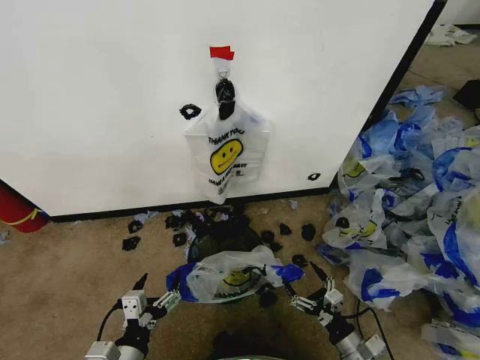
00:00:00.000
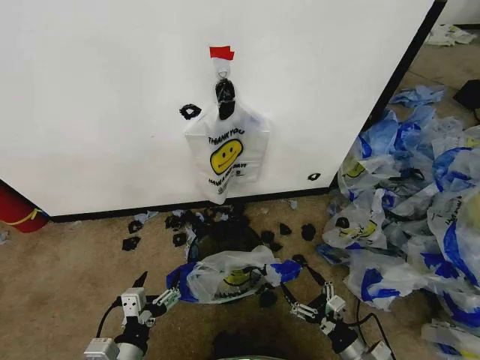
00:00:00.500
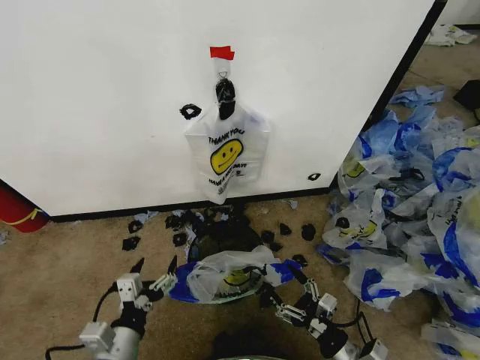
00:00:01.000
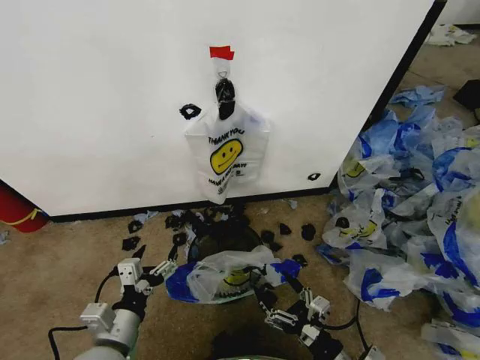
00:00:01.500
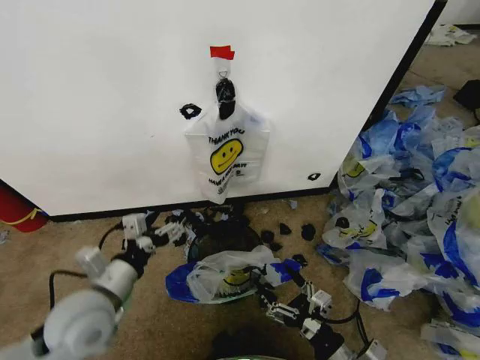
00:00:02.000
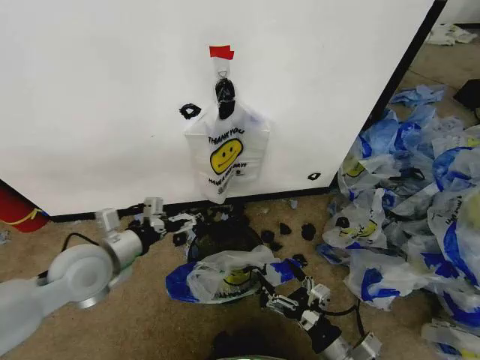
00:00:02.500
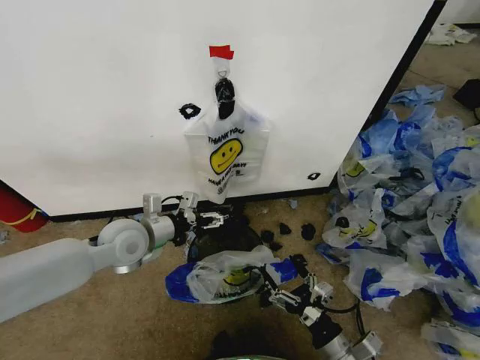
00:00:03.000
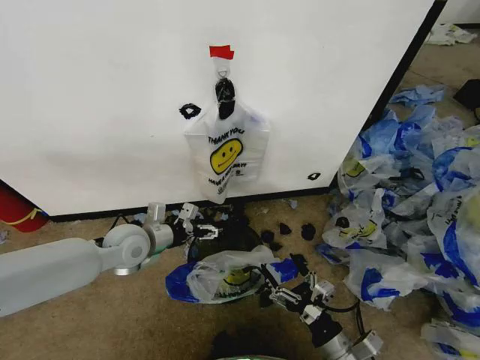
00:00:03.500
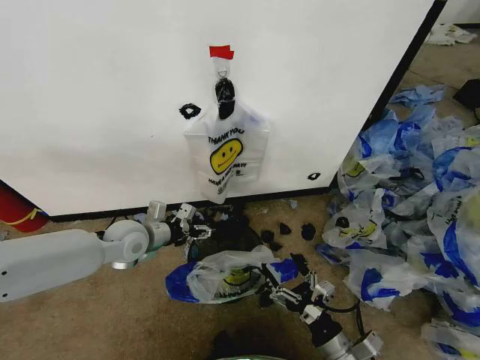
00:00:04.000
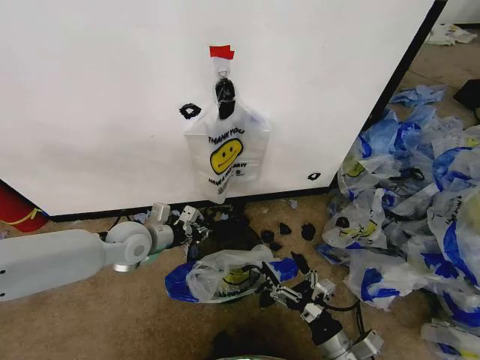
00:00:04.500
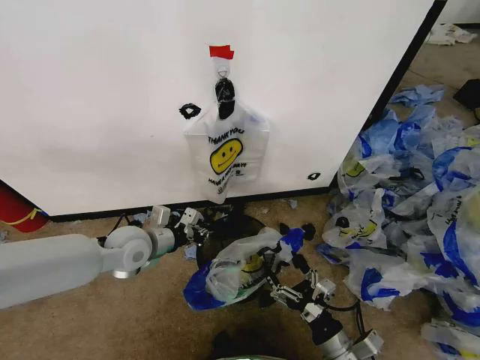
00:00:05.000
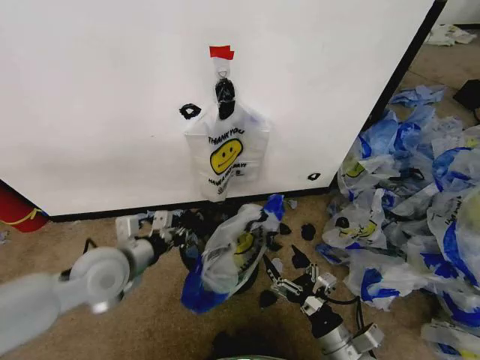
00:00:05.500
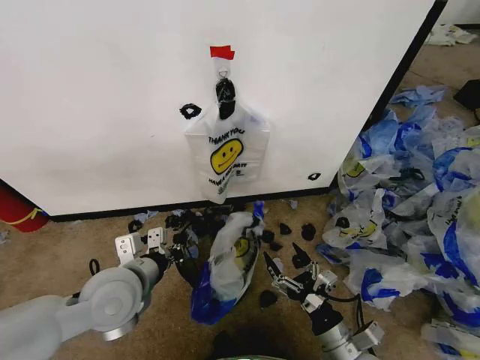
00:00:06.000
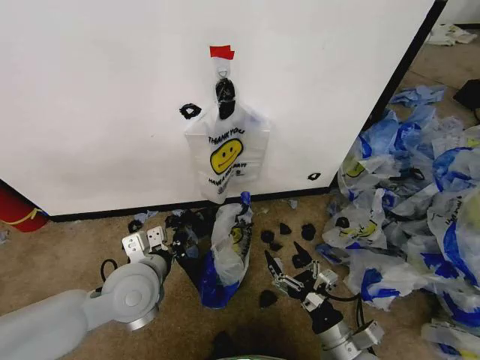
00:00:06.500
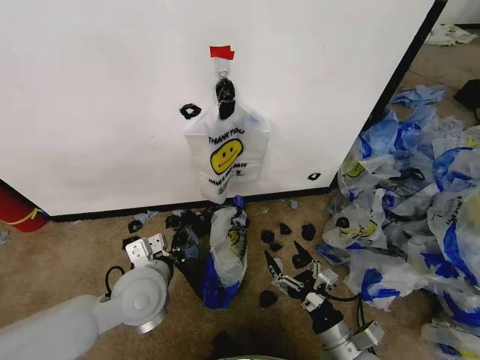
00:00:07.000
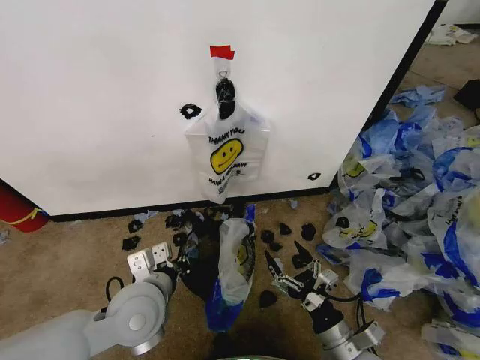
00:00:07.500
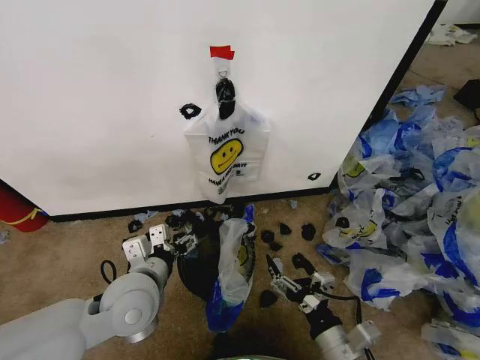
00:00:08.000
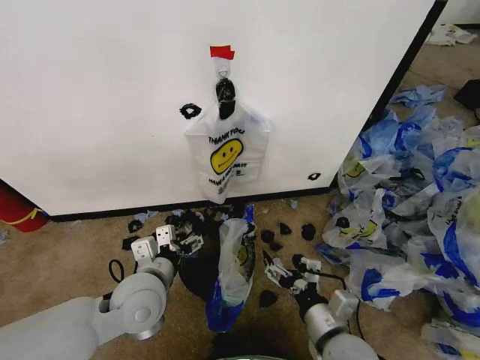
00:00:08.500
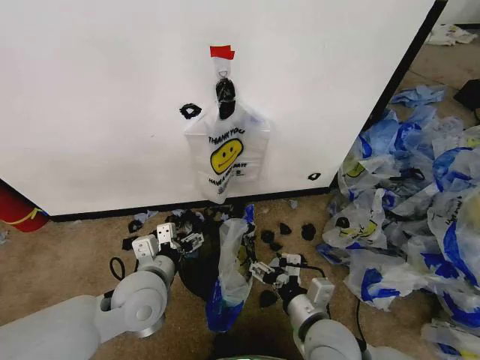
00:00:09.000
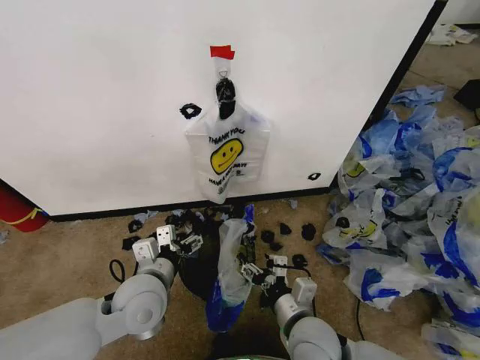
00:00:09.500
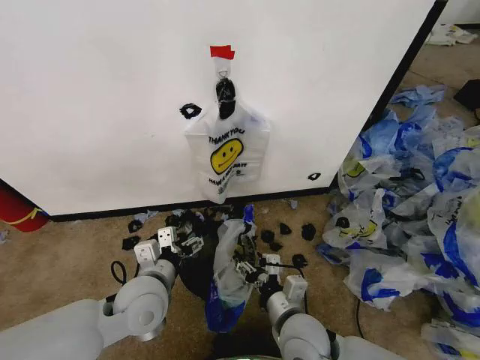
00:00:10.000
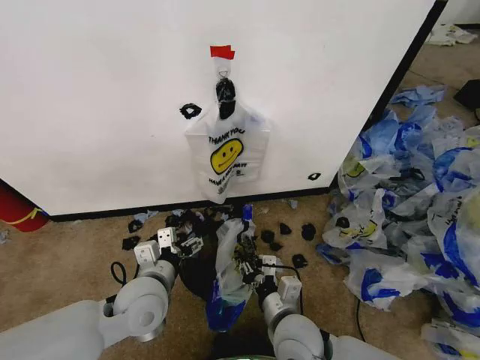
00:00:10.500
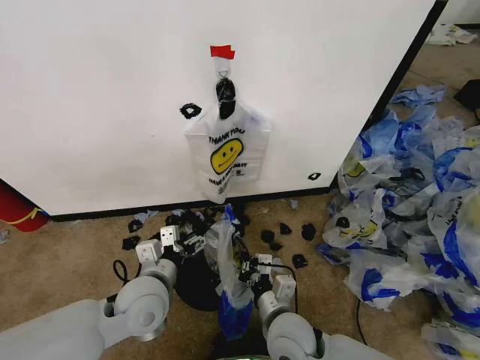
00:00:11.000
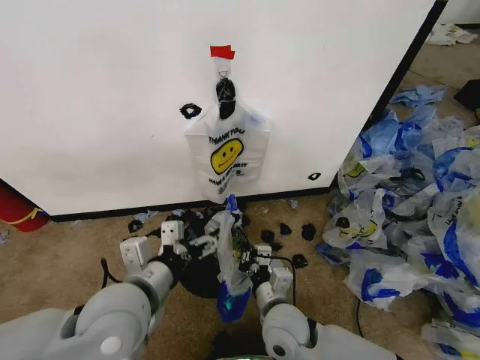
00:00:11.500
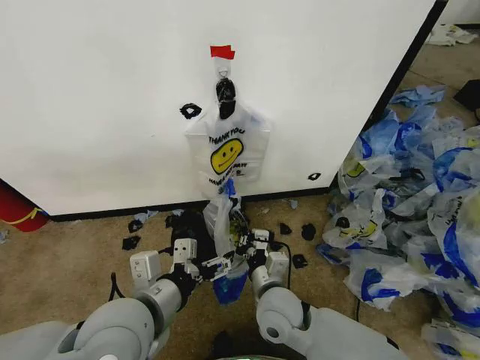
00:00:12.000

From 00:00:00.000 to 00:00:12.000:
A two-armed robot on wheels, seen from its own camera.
Task of the whole recording: Pick up the garbage bag from the wall and place it over the trash bin.
From 00:00:00.000 to 00:00:02.000: The left gripper heads forward and upward, covering approximately 15 cm, while the right gripper moves upward and to the left, some 10 cm.
From 00:00:02.000 to 00:00:04.000: The left gripper heads forward, covering approximately 20 cm.
From 00:00:04.000 to 00:00:06.000: The left gripper shifts roughly 15 cm backward, and closes its fingers.
From 00:00:06.000 to 00:00:08.000: The left gripper opens its fingers.
From 00:00:08.000 to 00:00:10.000: The right gripper goes roughly 10 cm to the left and forward.
From 00:00:10.000 to 00:00:12.000: The left gripper heads upward and backward, covering approximately 10 cm. The right gripper shifts some 5 cm forward, and closes up.

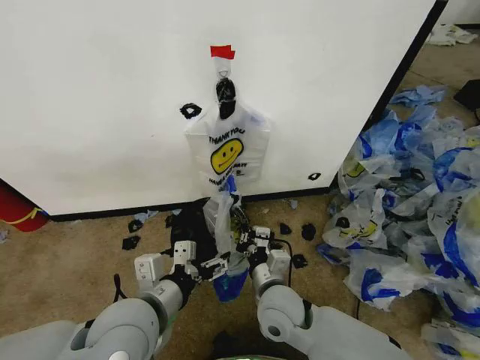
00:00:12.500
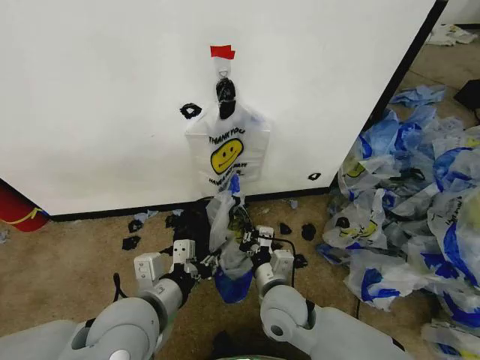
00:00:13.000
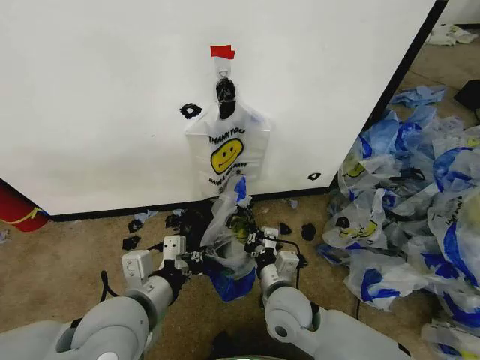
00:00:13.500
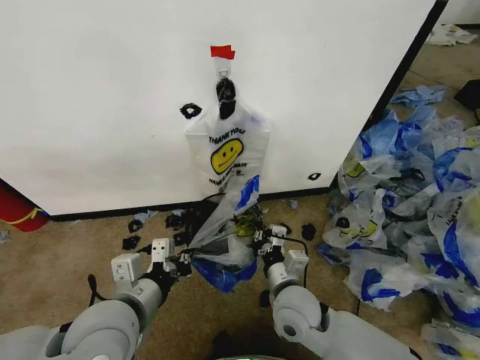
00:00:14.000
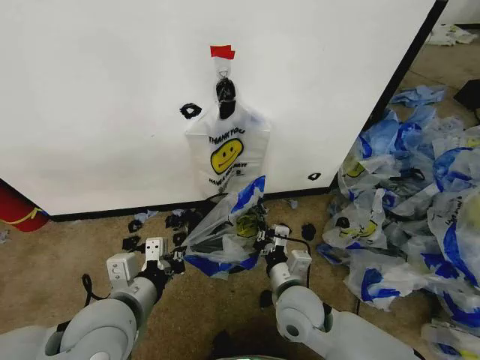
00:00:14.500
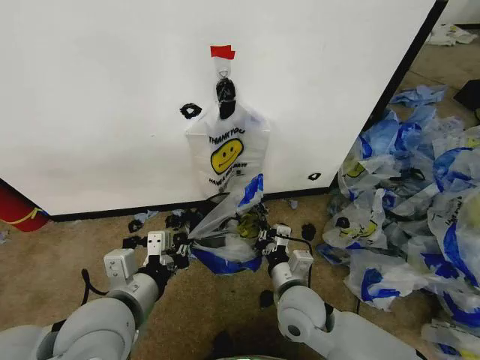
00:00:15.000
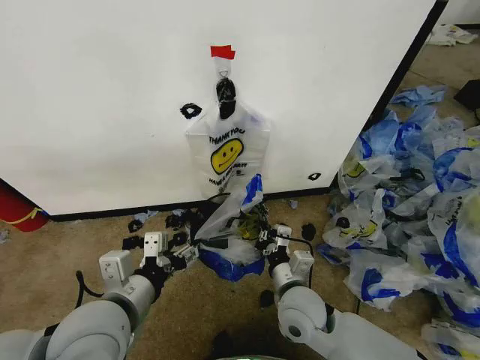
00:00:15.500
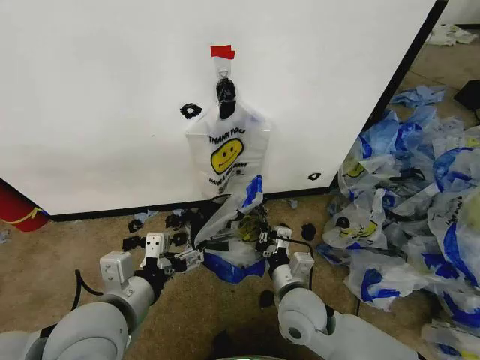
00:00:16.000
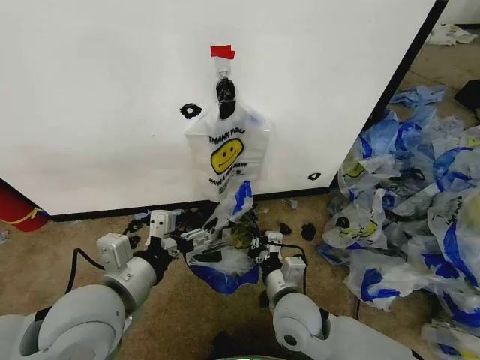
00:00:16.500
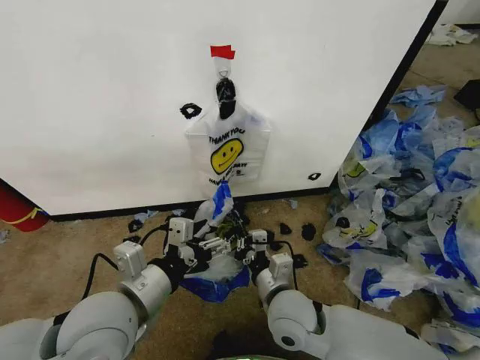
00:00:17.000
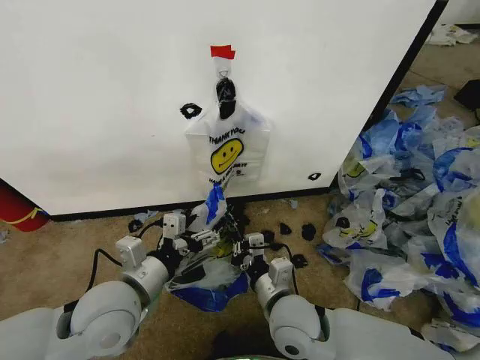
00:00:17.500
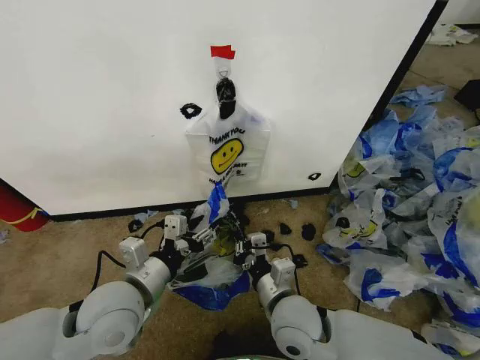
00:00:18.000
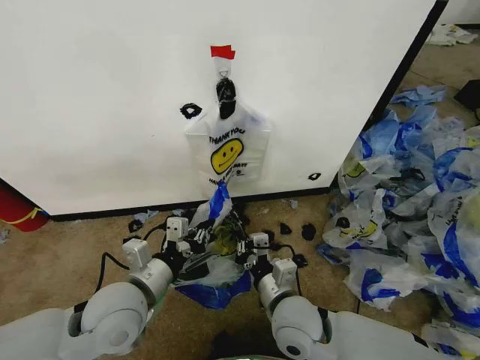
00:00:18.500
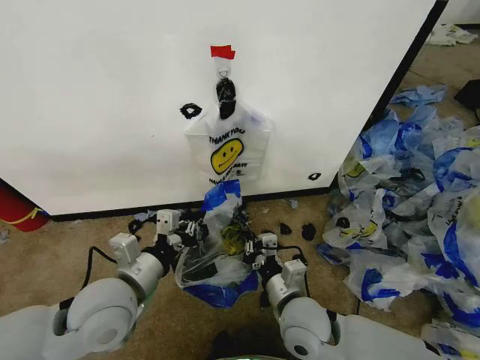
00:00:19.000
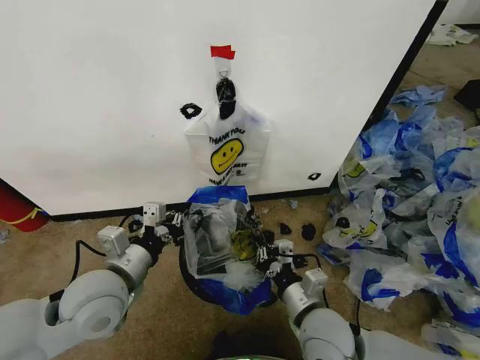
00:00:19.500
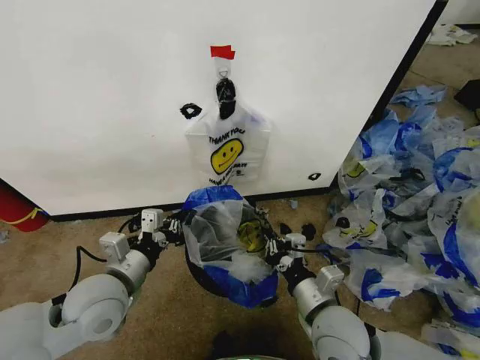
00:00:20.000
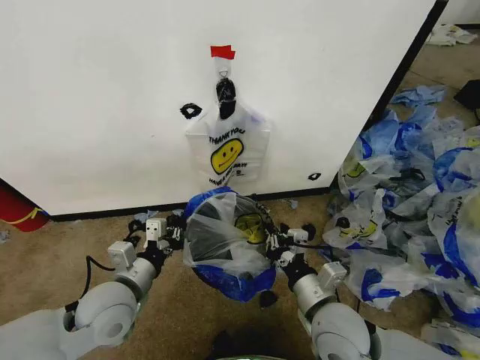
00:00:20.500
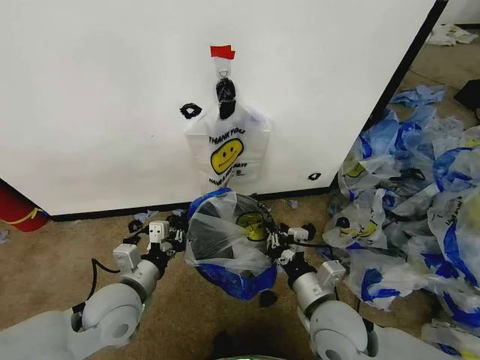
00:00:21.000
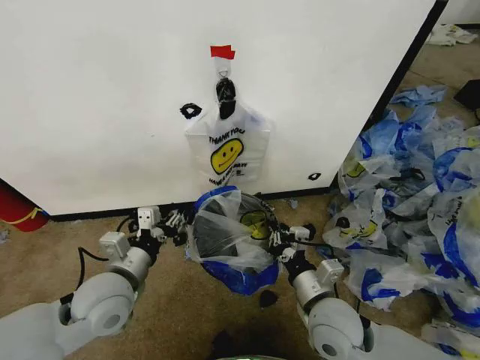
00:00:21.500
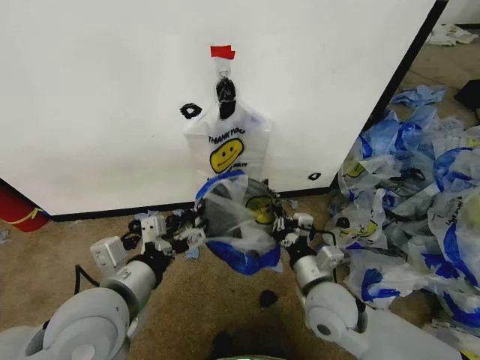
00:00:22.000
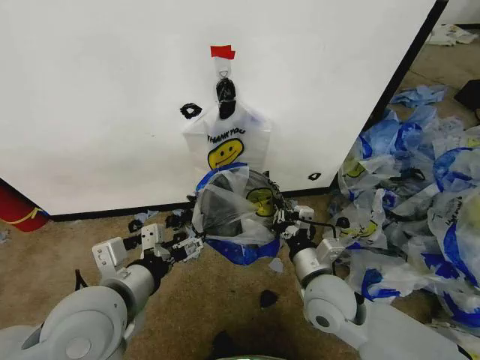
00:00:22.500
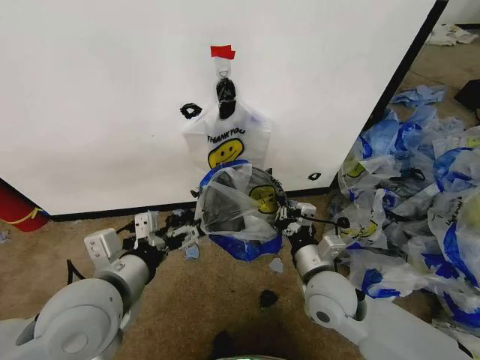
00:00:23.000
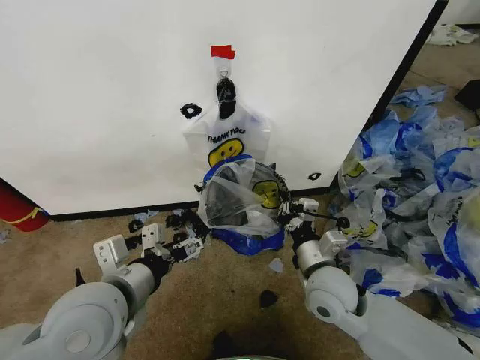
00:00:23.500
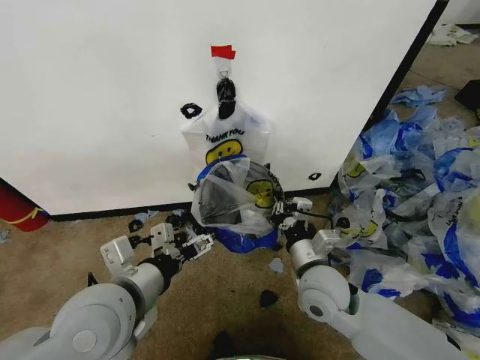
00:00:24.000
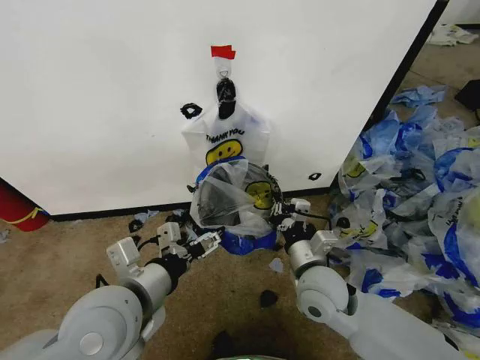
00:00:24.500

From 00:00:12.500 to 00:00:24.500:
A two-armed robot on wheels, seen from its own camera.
Task of the whole recording: Pick up the garbage bag from the wall and place it over the trash bin.
From 00:00:12.500 to 00:00:14.500: The left gripper closes up.
From 00:00:14.500 to 00:00:16.500: The left gripper opens its fingers.
From 00:00:16.500 to 00:00:18.500: The left gripper is displaced downward by some 5 cm, and closes its fingers.
From 00:00:18.500 to 00:00:20.500: The left gripper ends up about 5 cm from where it was. The right gripper goes some 5 cm to the right.
From 00:00:20.500 to 00:00:22.500: The right gripper is displaced forward by roughly 5 cm, while the left gripper goes some 10 cm upward, and opens up.
From 00:00:22.500 to 00:00:24.500: There are only small adjustments of the grippers.

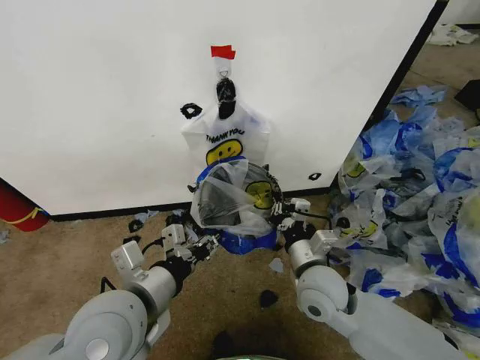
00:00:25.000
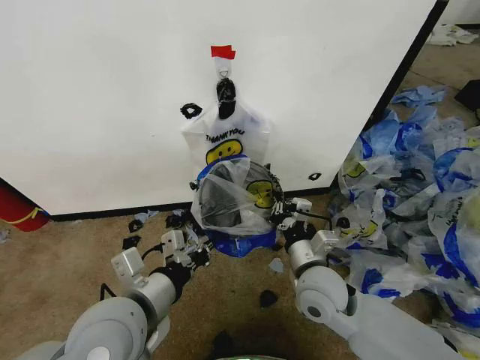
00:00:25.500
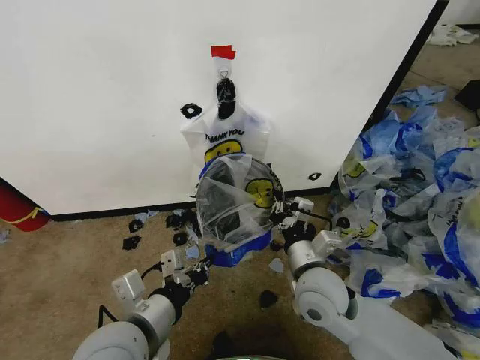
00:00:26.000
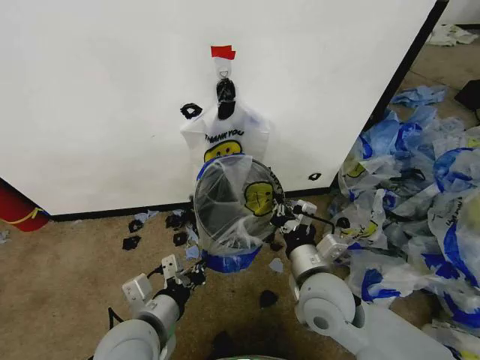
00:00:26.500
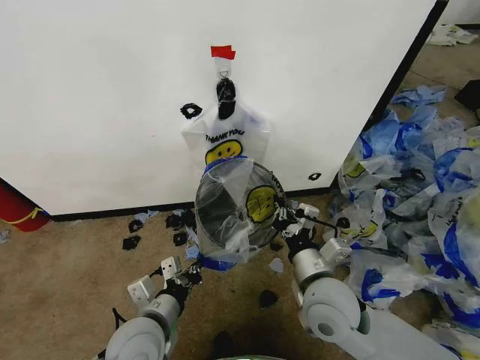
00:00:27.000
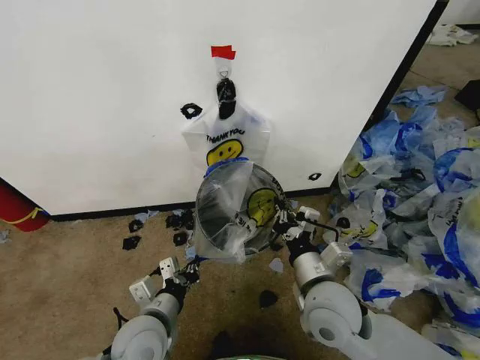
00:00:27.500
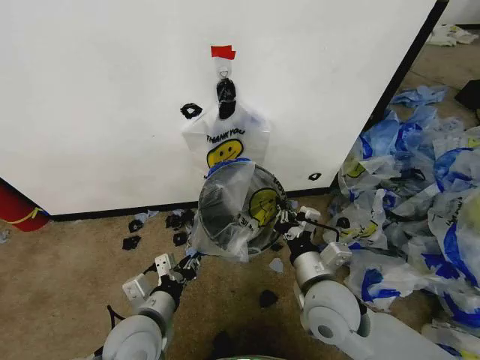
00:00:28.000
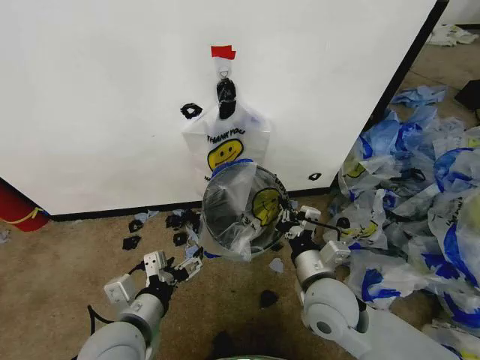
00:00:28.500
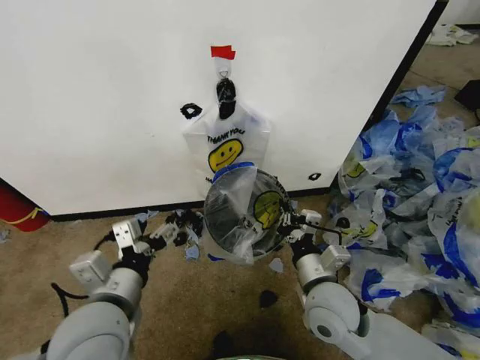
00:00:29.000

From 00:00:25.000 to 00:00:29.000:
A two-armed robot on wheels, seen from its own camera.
Task of the whole recording: Pick up the garbage bag from the wall and place it over the trash bin.
From 00:00:25.000 to 00:00:27.000: The left gripper shifts about 10 cm downward, and closes up.
From 00:00:27.000 to 00:00:29.000: The left gripper travels upward by approximately 10 cm, and opens its fingers.
